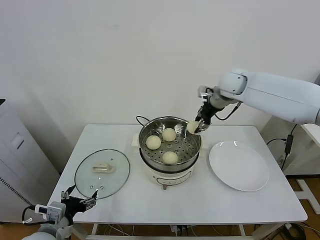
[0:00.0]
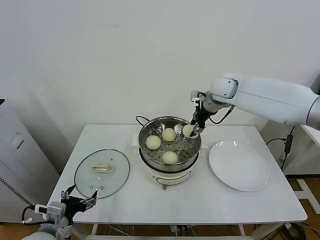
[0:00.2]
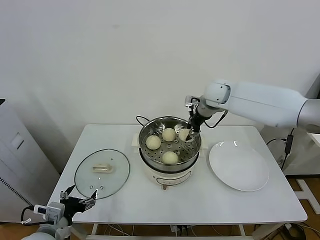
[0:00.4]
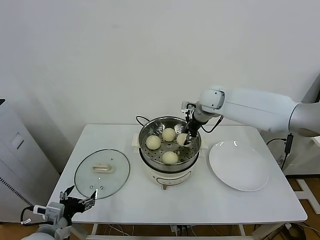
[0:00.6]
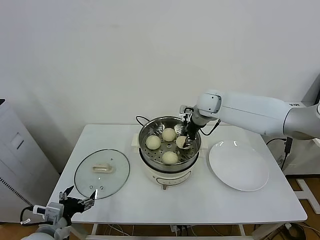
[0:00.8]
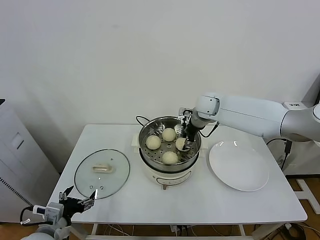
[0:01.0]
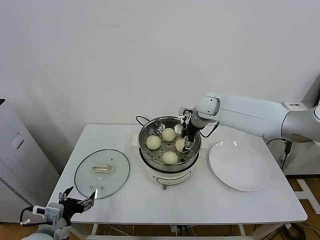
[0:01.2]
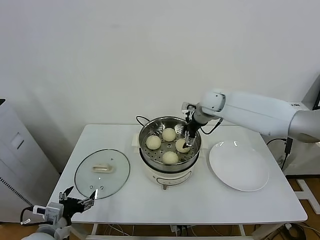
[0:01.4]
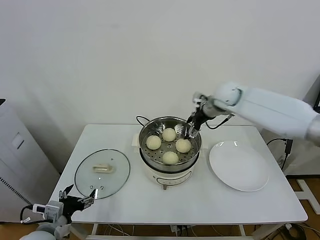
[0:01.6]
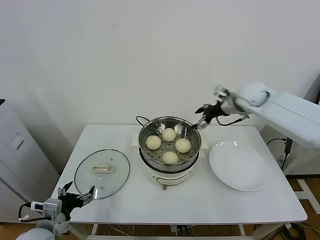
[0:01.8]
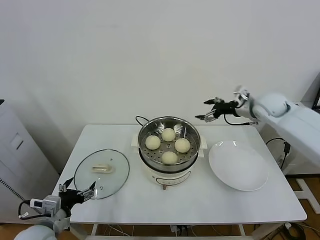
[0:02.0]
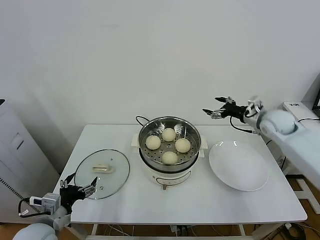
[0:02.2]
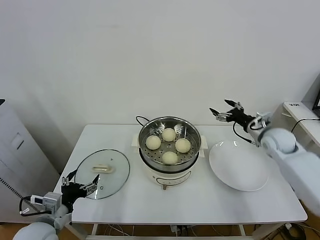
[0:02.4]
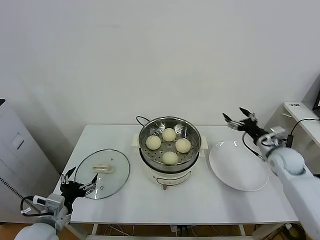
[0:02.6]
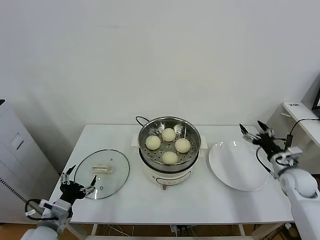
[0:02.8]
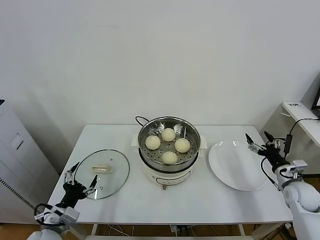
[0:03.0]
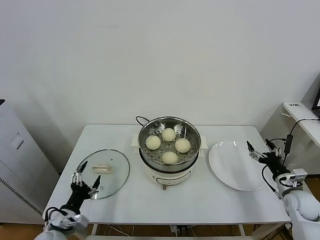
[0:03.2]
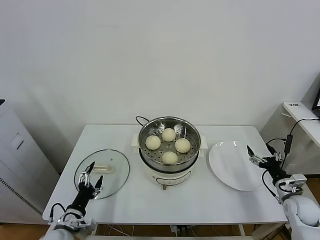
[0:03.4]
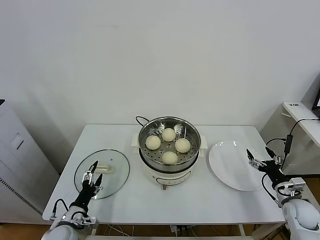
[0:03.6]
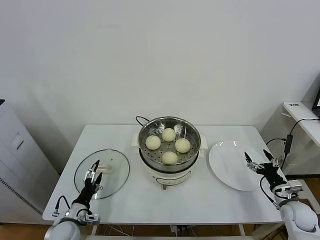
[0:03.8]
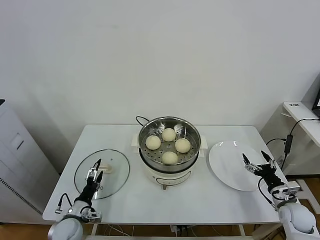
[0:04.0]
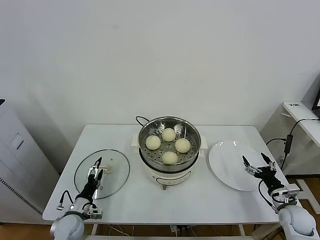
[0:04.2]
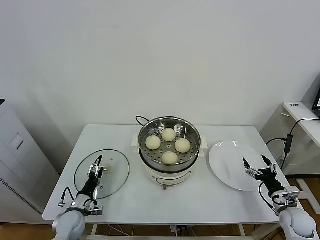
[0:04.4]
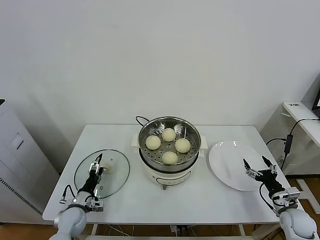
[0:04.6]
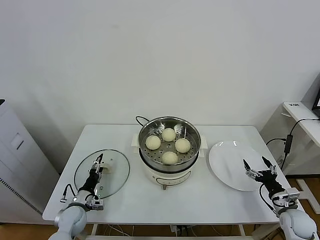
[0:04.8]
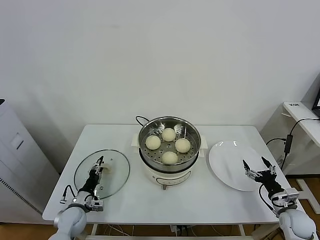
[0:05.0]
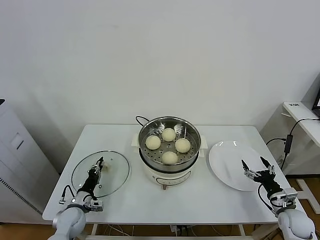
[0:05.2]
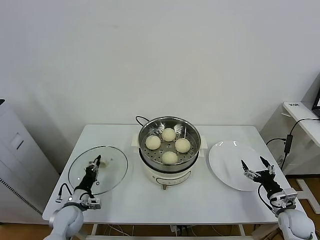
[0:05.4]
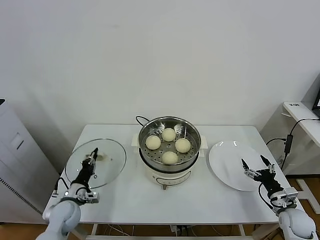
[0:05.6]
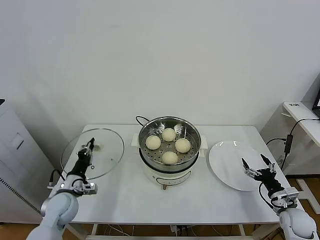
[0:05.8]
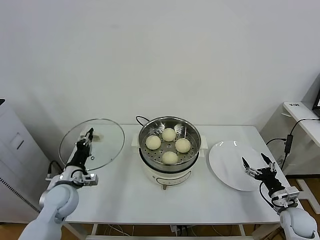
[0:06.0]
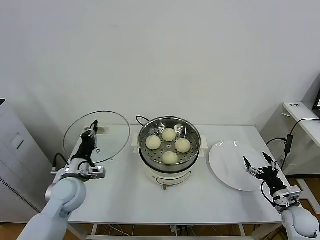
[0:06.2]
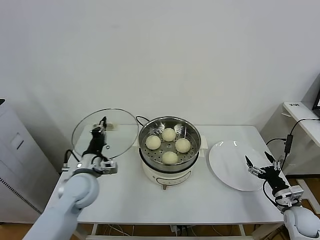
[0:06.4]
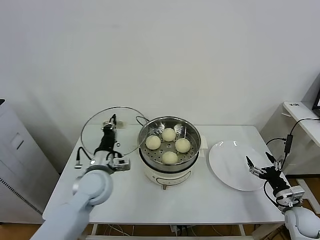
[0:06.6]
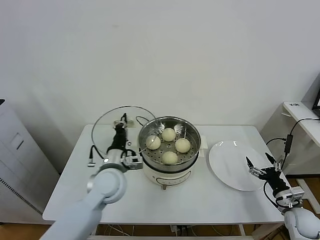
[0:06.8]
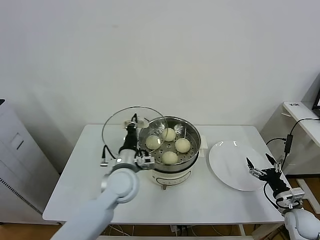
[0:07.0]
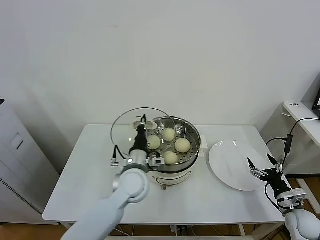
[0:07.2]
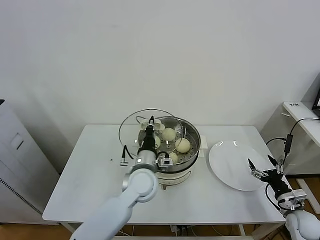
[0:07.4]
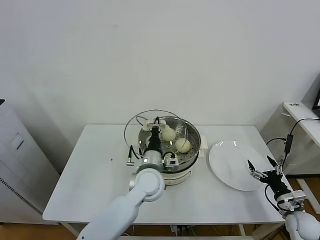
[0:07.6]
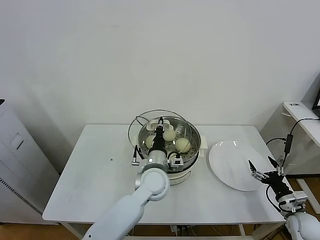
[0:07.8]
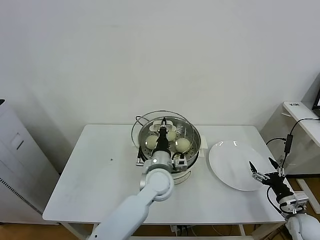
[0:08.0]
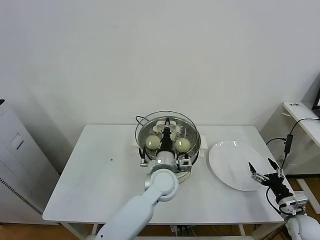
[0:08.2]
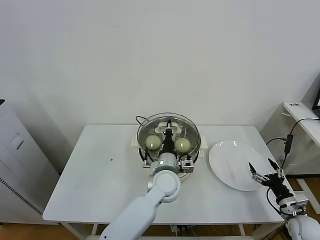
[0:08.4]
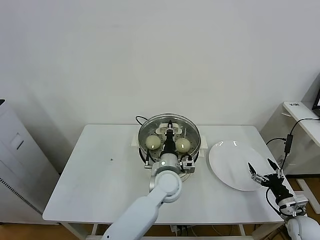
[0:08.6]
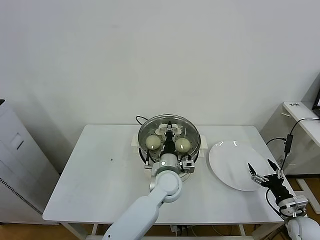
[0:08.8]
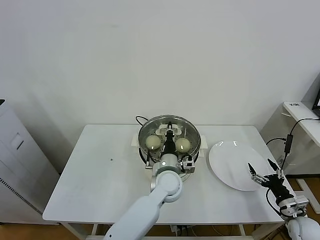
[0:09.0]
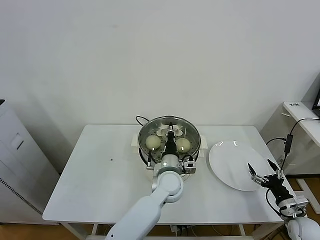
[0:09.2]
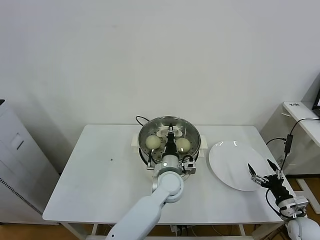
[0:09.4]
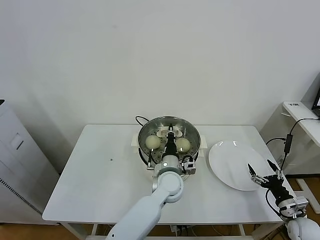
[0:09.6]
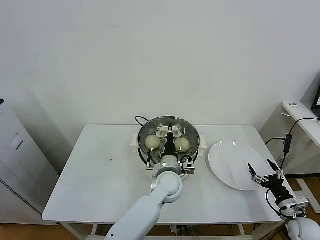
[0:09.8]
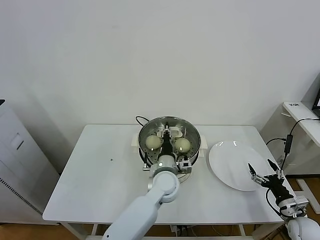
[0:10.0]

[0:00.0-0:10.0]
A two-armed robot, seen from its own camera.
Task of the whole recording: take steamed baozi put them in steamer.
Step, 0:01.6 to 0:05.4: Grasp the pot lid with left gripper.
0:00.0 to 0:01.4: The right gripper moves downward, approximately 5 cm, and opens.
0:01.4 to 0:02.8: The right gripper heads to the right, backward and downward, covering about 40 cm.
0:02.8 to 0:04.2: The left gripper heads downward and forward, covering approximately 15 cm. The right gripper heads downward and backward, covering approximately 15 cm.
0:04.2 to 0:05.8: The left gripper shifts roughly 10 cm upward, and closes.
0:05.8 to 0:07.2: The left gripper travels to the right and upward by some 25 cm.
0:07.2 to 0:08.6: The left gripper travels to the right by approximately 10 cm.
0:08.6 to 0:10.0: The grippers move only a little.

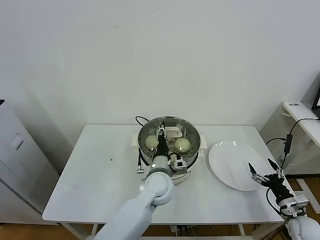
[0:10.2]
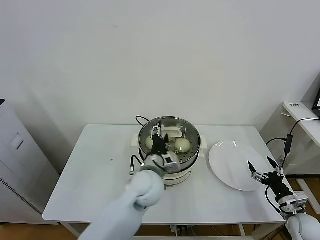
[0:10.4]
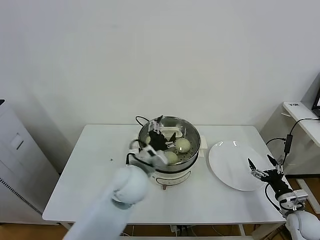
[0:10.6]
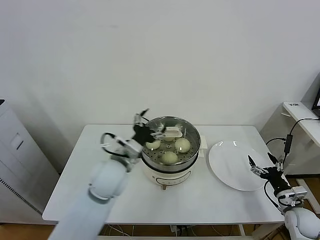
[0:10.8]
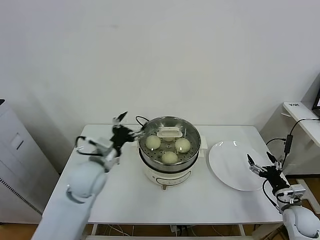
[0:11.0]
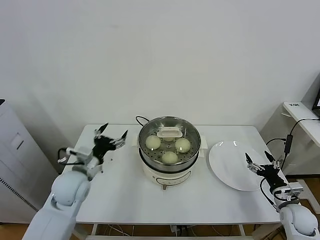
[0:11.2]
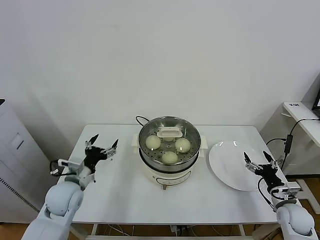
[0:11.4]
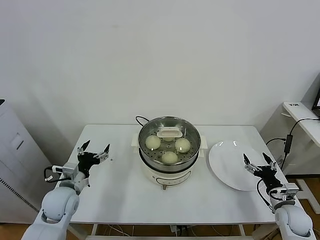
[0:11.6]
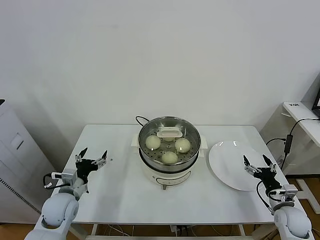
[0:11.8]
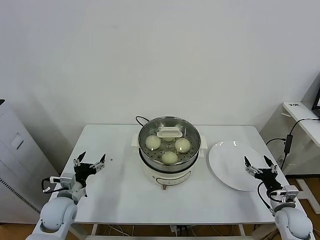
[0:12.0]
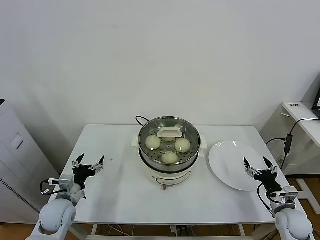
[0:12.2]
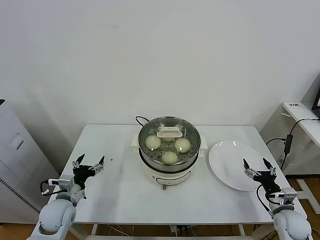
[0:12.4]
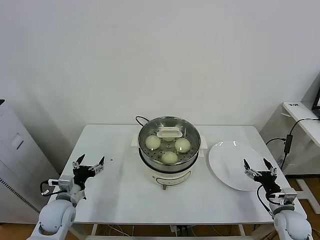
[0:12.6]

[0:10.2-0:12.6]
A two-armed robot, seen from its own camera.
Task of the whole recording: take steamed baozi put them in steamer.
0:10.2 to 0:11.4: The left gripper is displaced to the left by about 30 cm, and opens; the right gripper shifts by about 5 cm.
0:11.4 to 0:12.6: The left gripper goes some 10 cm downward.

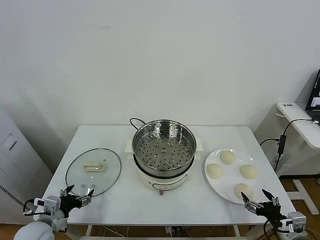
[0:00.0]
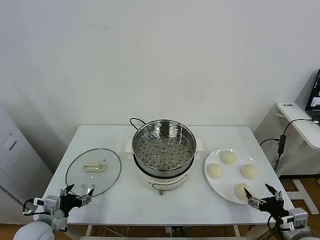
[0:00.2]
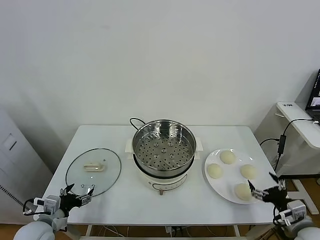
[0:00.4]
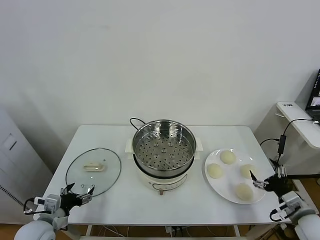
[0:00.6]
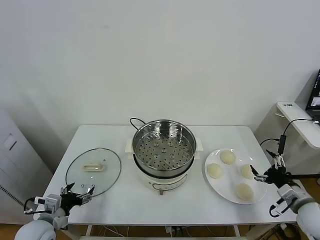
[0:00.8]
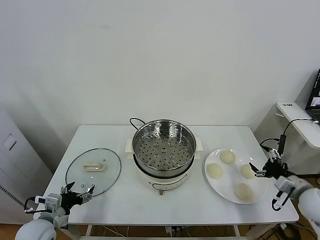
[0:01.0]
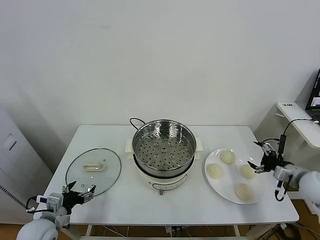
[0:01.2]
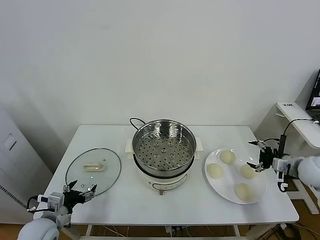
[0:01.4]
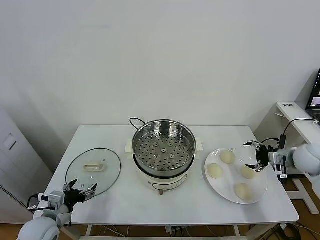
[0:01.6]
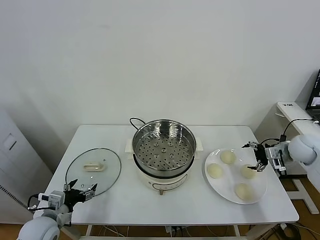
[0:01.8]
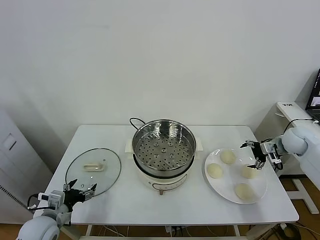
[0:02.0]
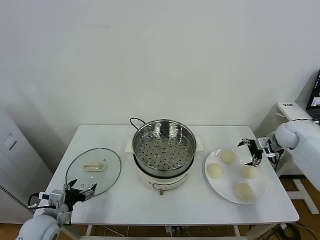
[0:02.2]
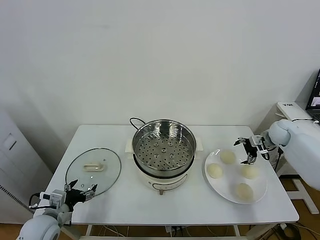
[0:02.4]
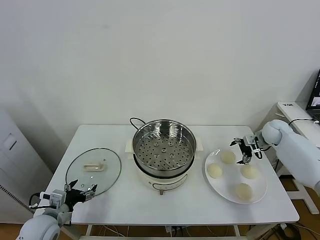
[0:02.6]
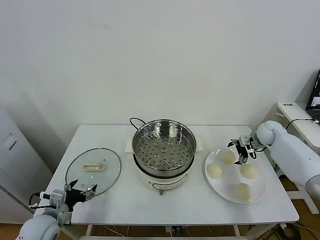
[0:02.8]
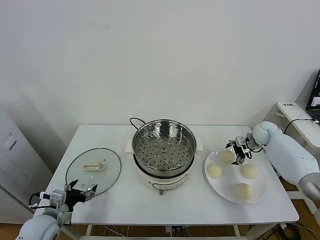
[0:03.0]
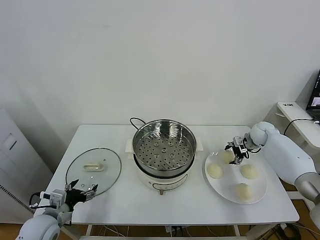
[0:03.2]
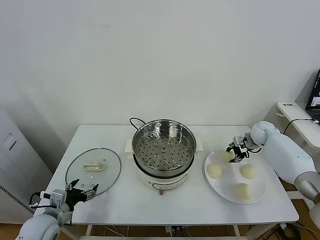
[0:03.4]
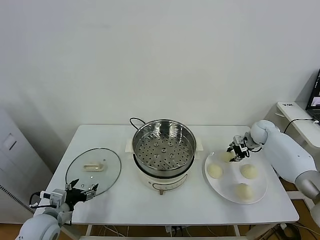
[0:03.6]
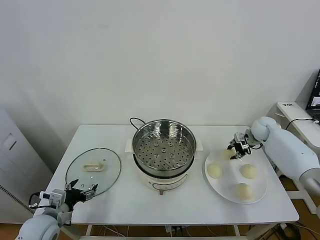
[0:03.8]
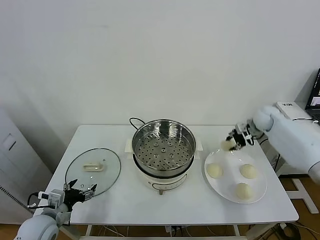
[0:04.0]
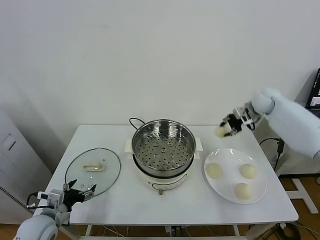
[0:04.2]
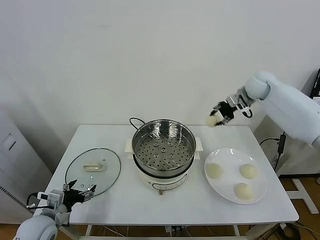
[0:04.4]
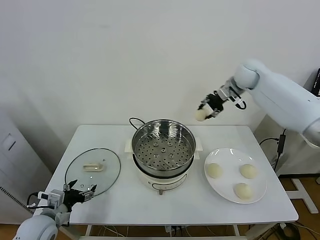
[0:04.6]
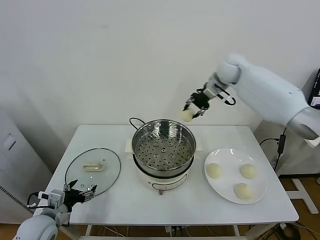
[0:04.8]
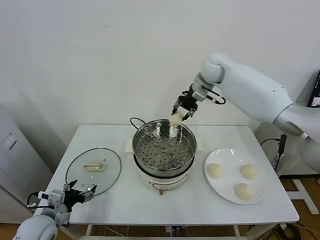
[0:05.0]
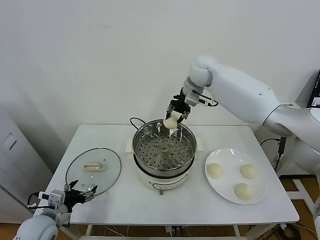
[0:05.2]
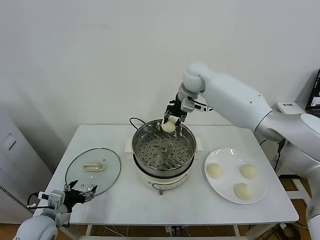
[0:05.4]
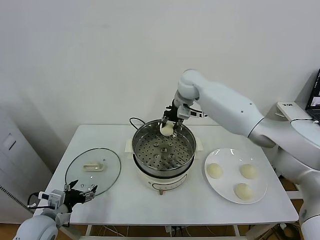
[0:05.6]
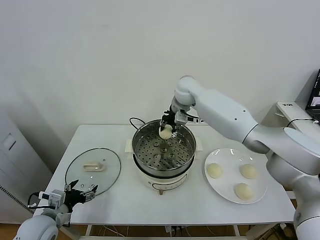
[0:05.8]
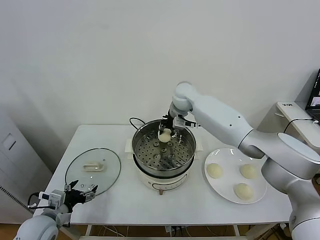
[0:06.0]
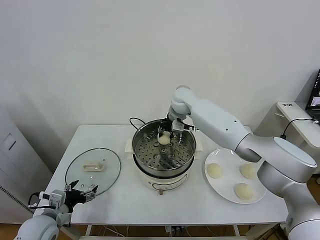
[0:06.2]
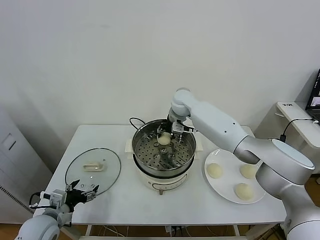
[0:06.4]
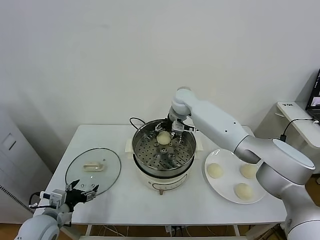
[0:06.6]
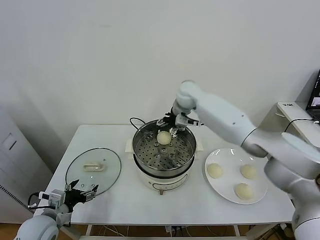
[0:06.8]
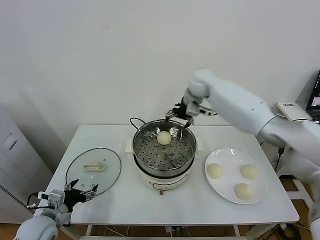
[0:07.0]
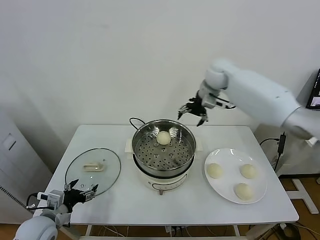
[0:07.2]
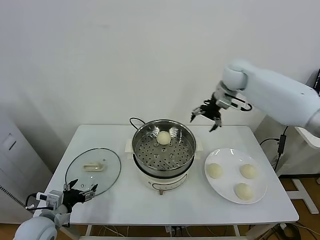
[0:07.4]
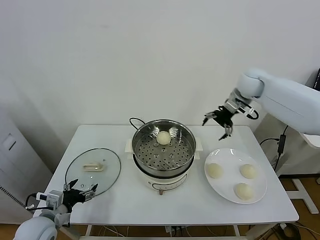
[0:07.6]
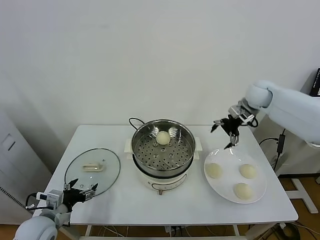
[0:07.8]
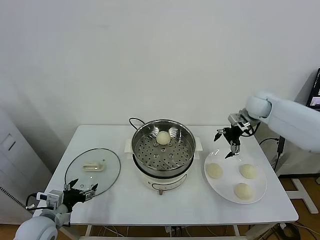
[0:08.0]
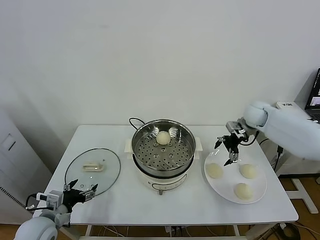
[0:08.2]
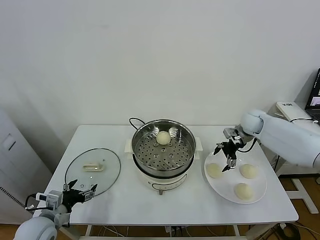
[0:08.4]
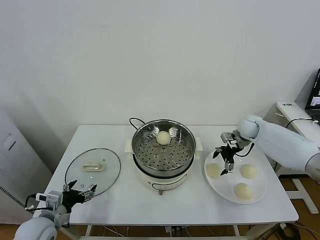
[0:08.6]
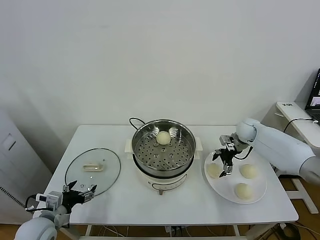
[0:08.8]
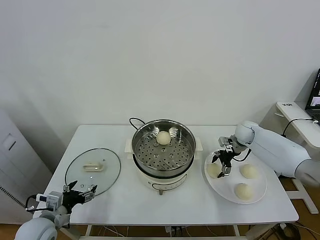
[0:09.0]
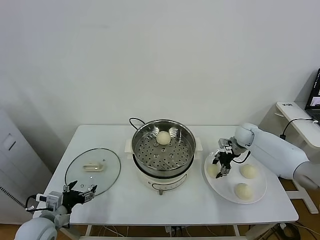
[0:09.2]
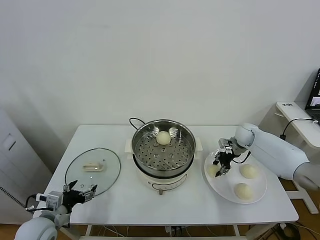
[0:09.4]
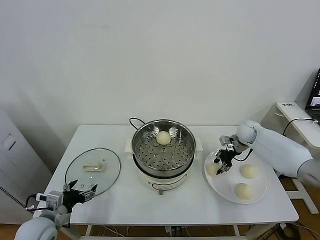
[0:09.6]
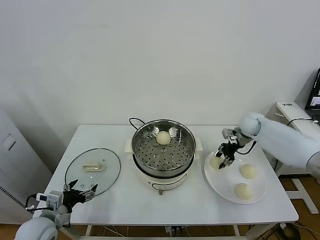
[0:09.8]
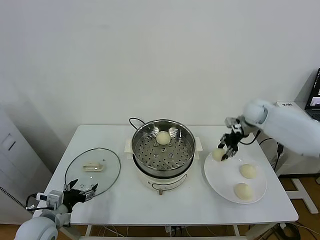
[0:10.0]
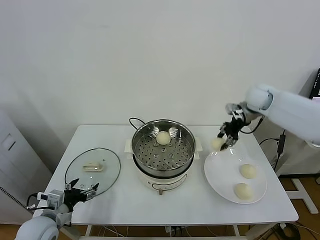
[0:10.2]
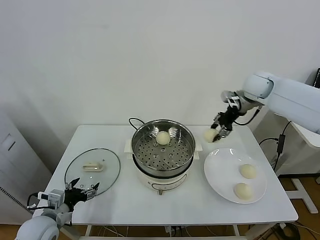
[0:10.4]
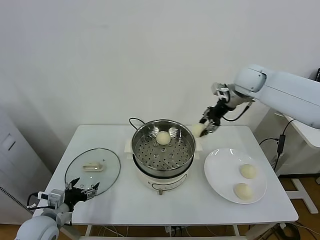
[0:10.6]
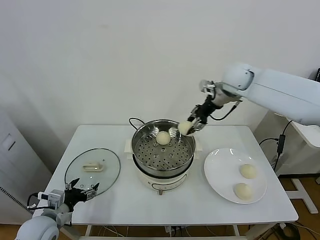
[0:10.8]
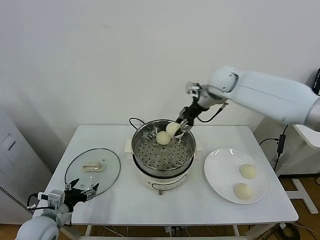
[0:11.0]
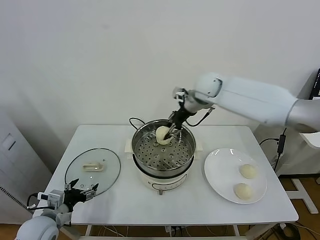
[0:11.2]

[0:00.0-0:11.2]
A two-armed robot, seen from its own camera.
Task of the whole recording: take steamed baozi put them in steamer.
Step, 0:00.0 to 0:03.2: Grasp the baozi in the plate with right gripper.
Step, 0:03.4 to 0:06.6: Place the baozi on the steamer with right gripper.
Step, 0:06.8 to 0:09.0: Grasp the baozi in the plate with right gripper.
0:01.6 to 0:03.2: The right gripper goes approximately 15 cm forward, to the left and downward, and closes up.
0:03.2 to 0:04.8: The right gripper heads upward and to the left, covering about 35 cm, and closes up.
0:04.8 to 0:06.4: The right gripper travels downward and to the left by roughly 15 cm, and opens up.
0:06.4 to 0:08.0: The right gripper shifts approximately 30 cm to the right, and opens.
0:08.0 to 0:09.6: The right gripper moves downward, about 10 cm, and closes up.
0:09.6 to 0:11.2: The right gripper moves to the left and upward, approximately 30 cm.
